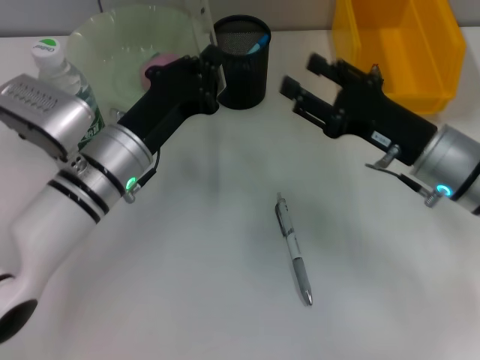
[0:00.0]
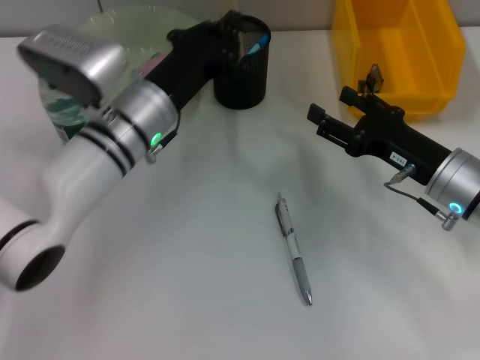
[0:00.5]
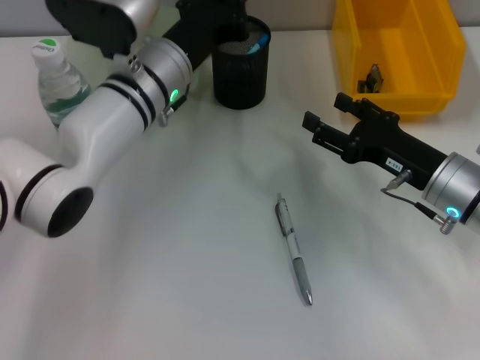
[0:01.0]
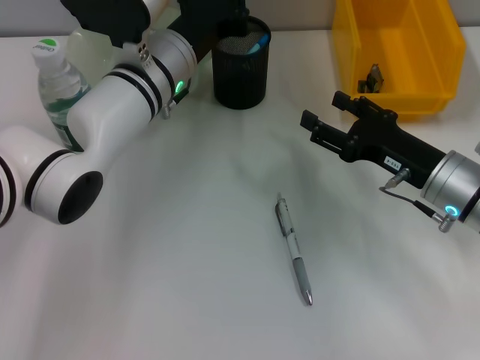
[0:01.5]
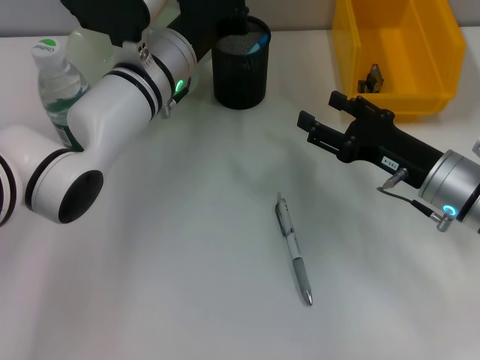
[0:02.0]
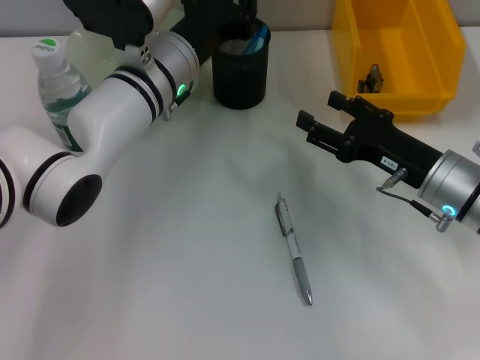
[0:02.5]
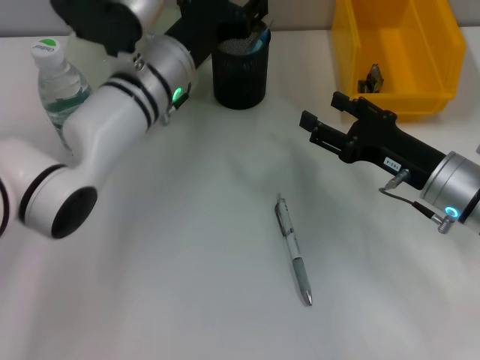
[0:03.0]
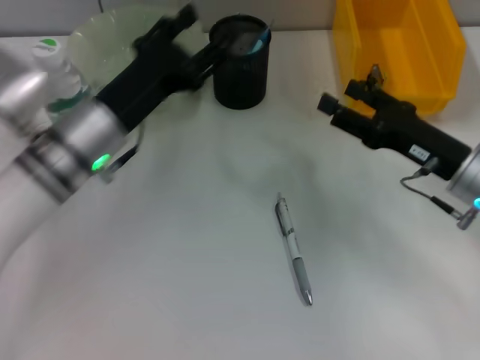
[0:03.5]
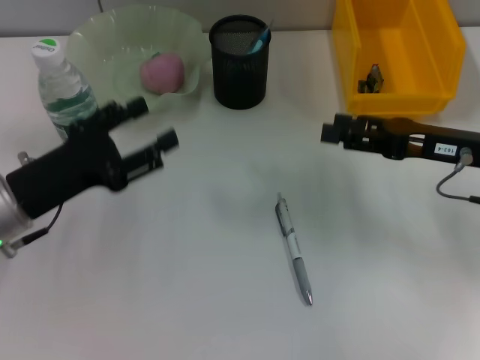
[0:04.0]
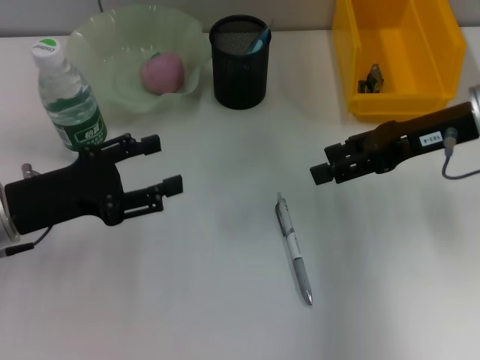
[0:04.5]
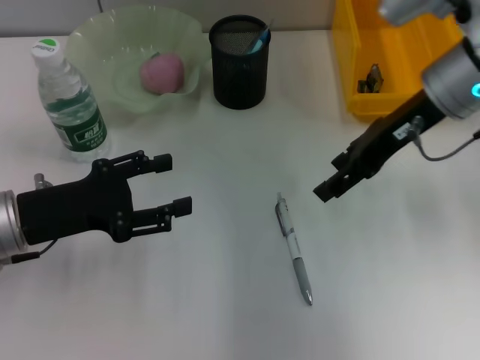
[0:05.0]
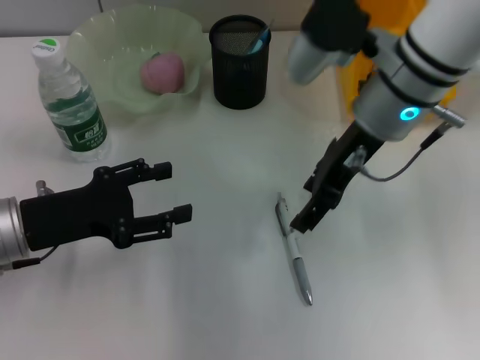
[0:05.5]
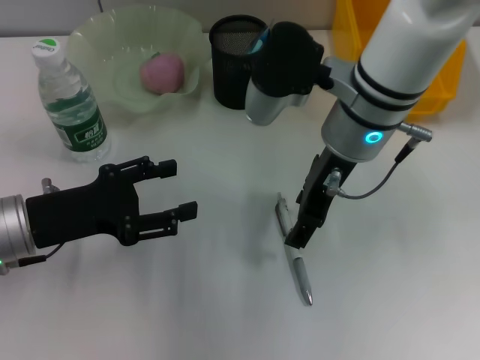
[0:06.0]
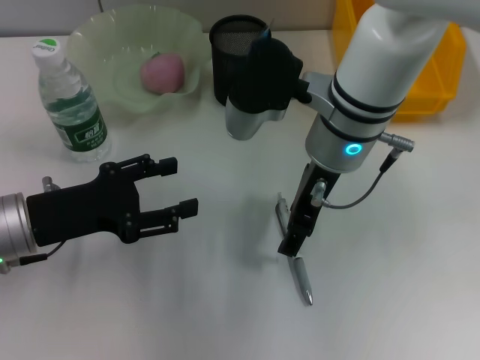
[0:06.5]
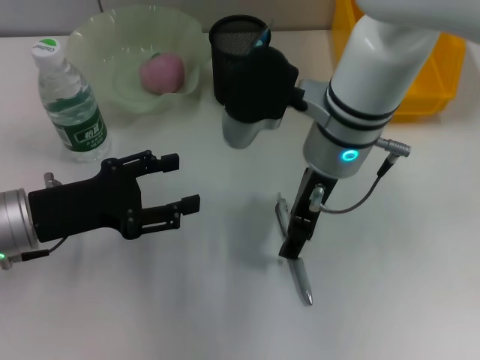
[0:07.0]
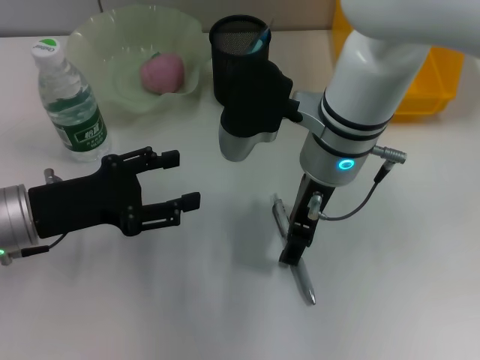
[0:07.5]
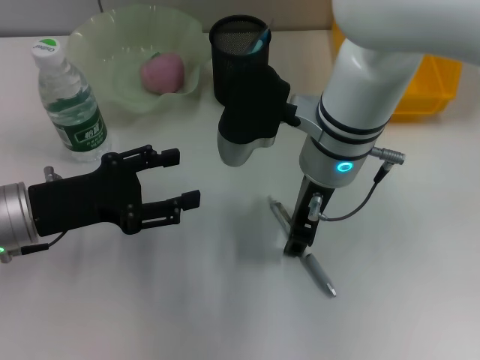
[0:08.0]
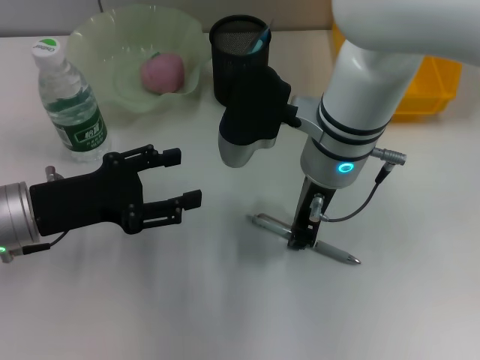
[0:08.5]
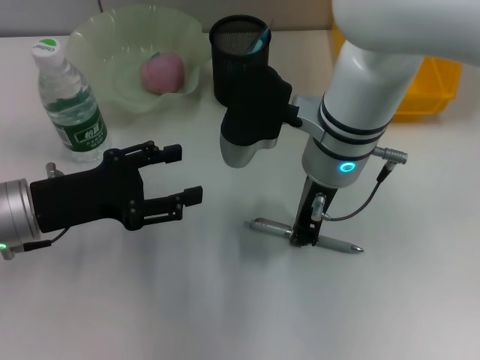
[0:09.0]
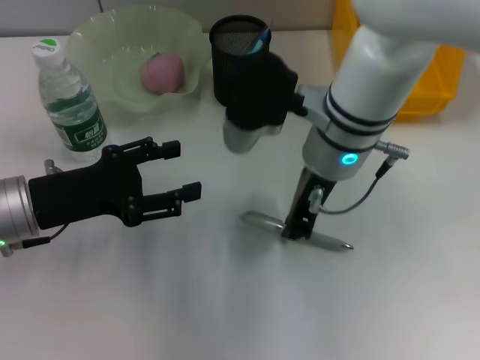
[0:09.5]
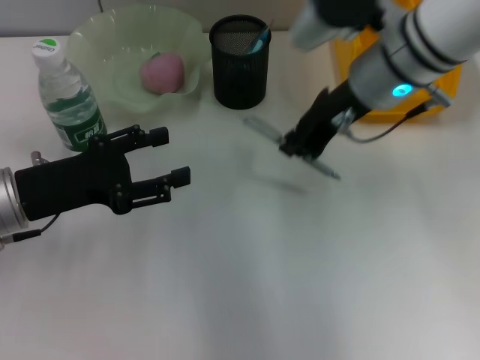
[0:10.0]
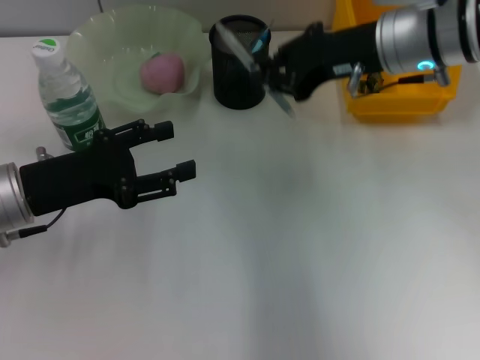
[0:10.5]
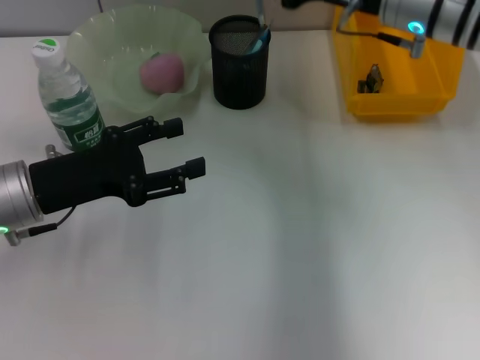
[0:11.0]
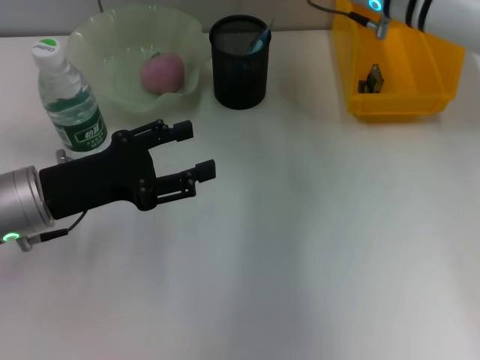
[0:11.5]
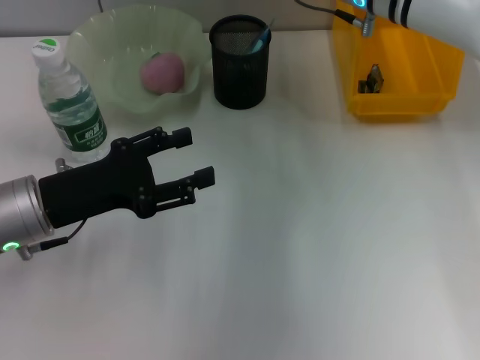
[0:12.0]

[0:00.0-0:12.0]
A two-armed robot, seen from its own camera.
Step, 0:00.0 to 0:03.0: Place the ruler into the pen holder with the left hand.
Step, 0:03.5 to 0:08.5: Grab the gray spring-action pen with the left hand.
0:00.0 to 0:02.0: The left gripper moves forward, roughly 10 cm.
0:02.0 to 0:04.0: The right gripper heads upward, covering some 5 cm. The left gripper heads to the left and backward, covering some 20 cm, and opens.
0:04.0 to 0:06.0: The right gripper moves to the left, approximately 20 cm.
0:08.0 to 0:10.0: The right gripper shifts some 5 cm to the right, and closes up.
0:10.0 to 0:12.0: The right gripper is displaced forward by approximately 5 cm.

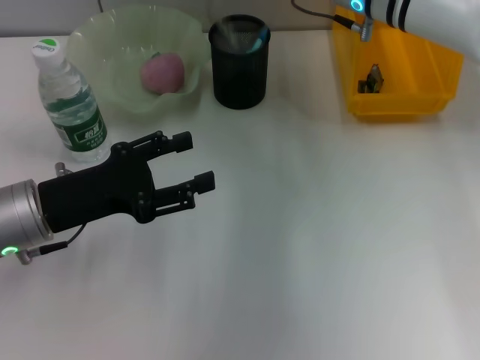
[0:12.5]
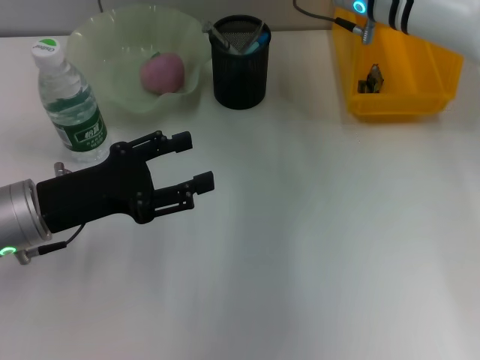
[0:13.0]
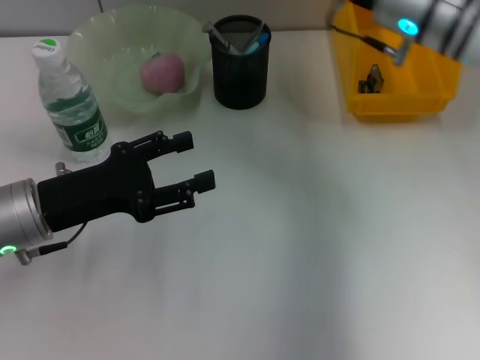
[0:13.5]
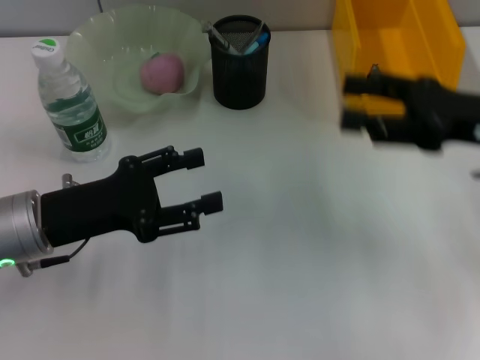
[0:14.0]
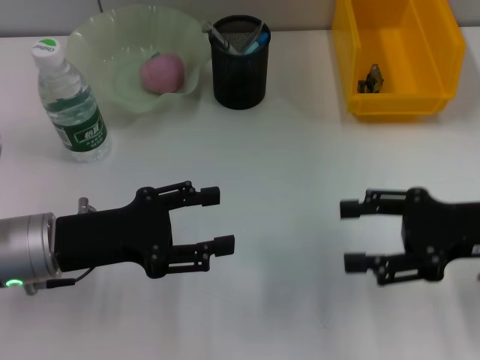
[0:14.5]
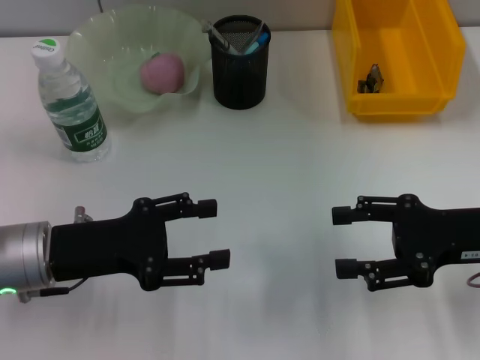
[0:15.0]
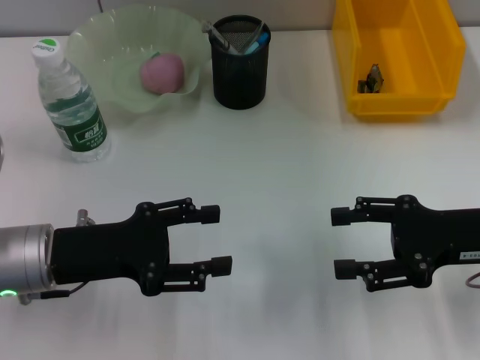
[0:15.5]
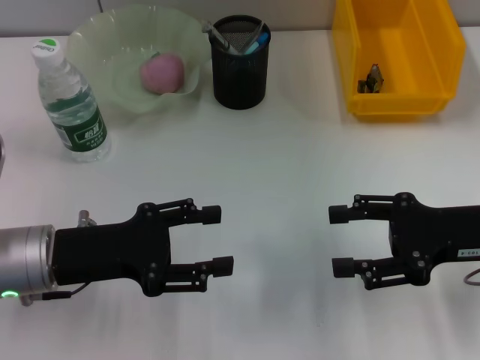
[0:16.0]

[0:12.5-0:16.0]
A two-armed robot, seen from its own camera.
0:12.5 to 0:14.5: The right gripper travels backward and to the right by some 25 cm, and opens its fingers.
0:14.5 to 0:16.0: The two grippers keep their place.

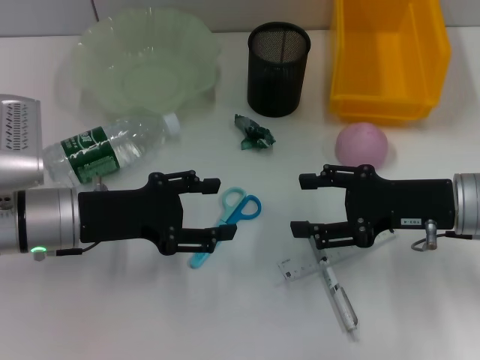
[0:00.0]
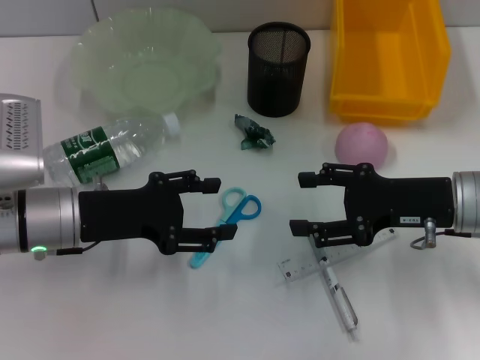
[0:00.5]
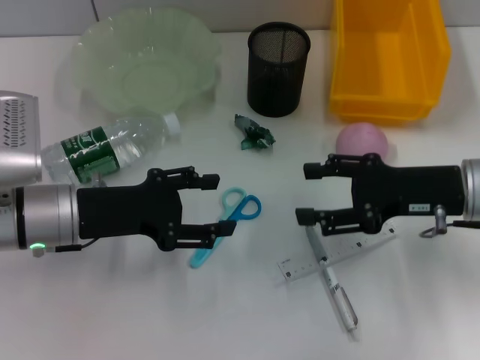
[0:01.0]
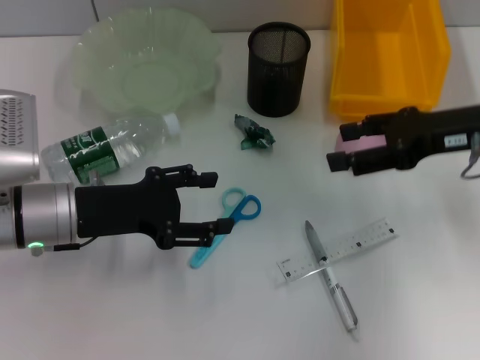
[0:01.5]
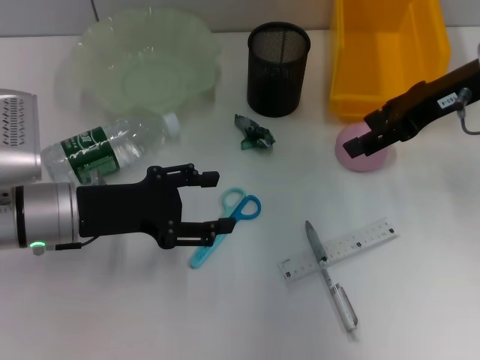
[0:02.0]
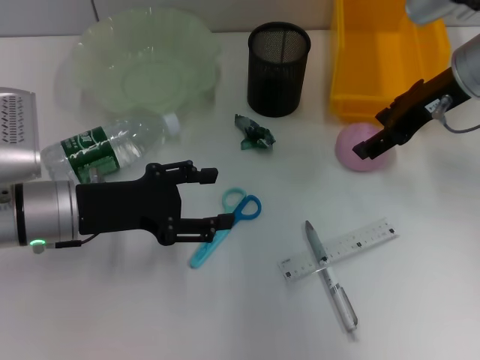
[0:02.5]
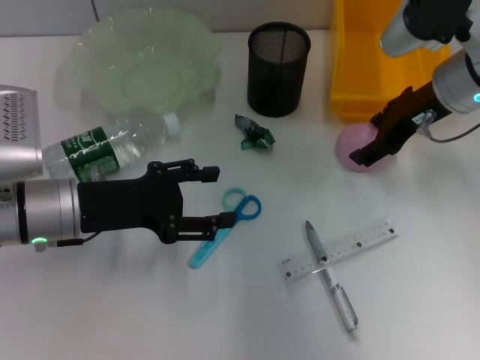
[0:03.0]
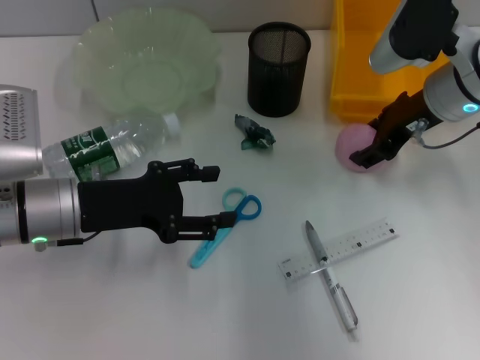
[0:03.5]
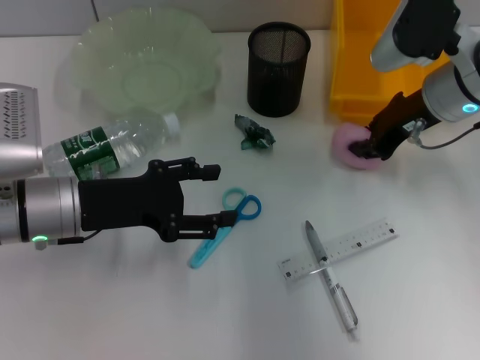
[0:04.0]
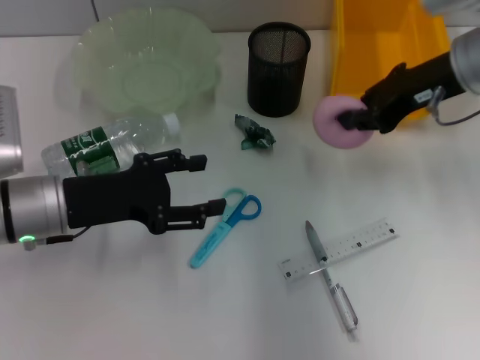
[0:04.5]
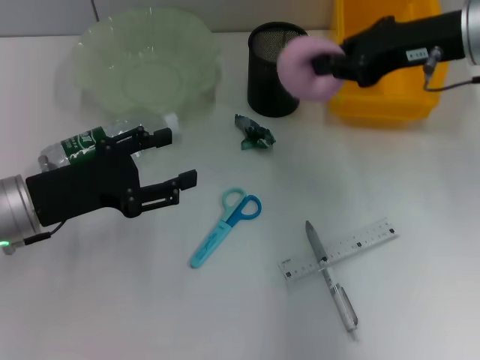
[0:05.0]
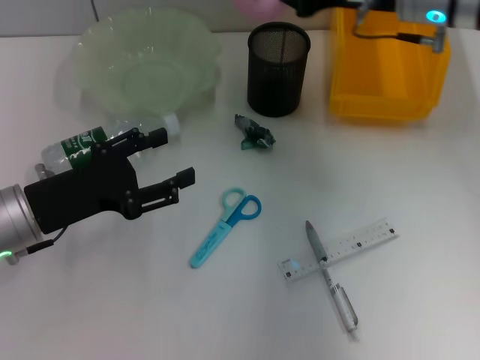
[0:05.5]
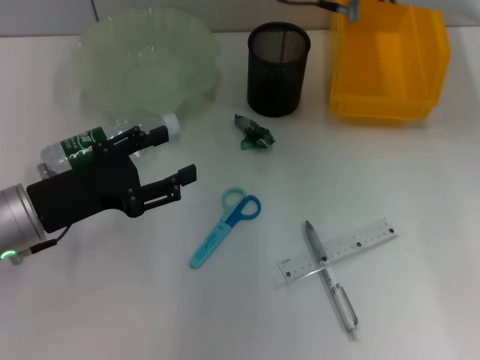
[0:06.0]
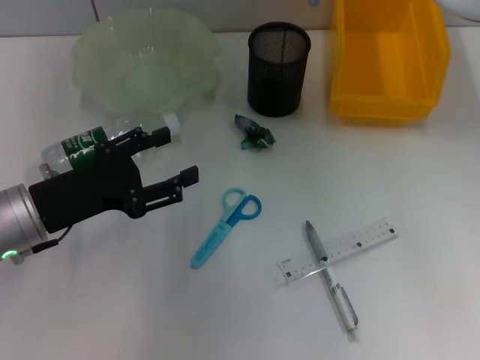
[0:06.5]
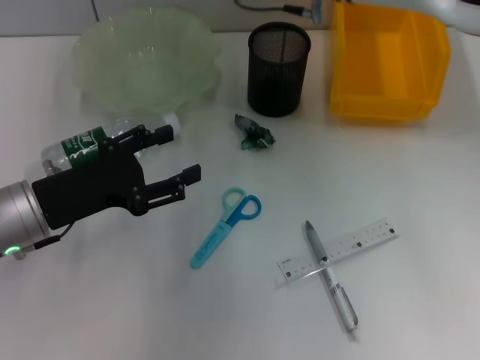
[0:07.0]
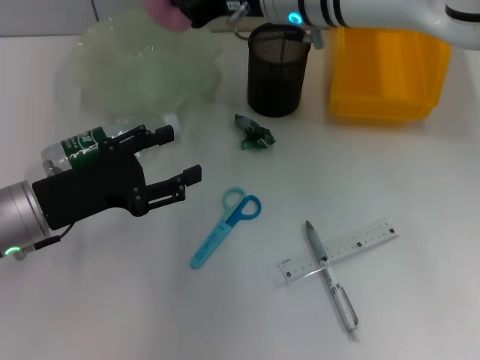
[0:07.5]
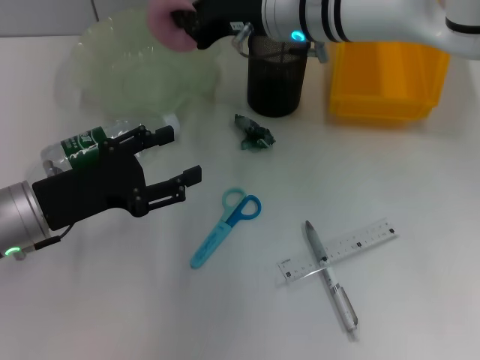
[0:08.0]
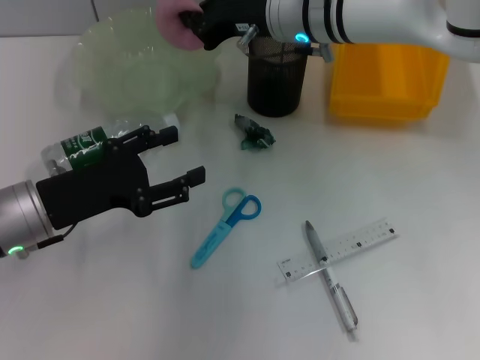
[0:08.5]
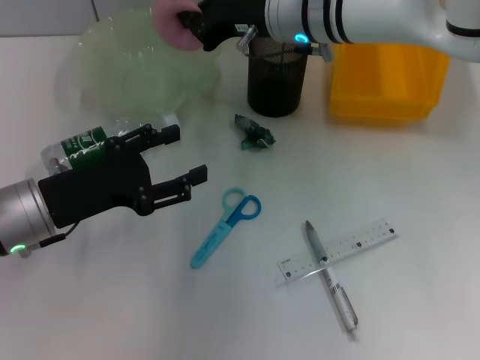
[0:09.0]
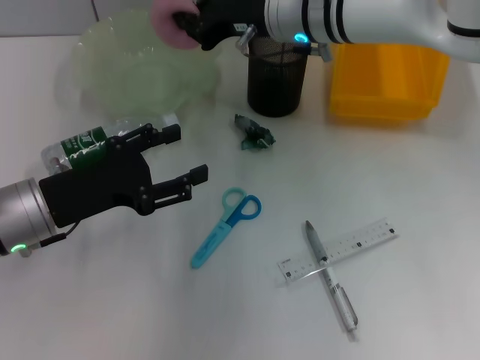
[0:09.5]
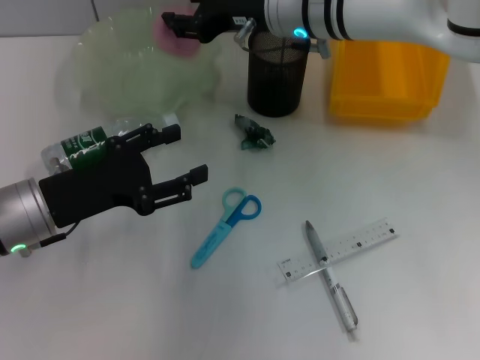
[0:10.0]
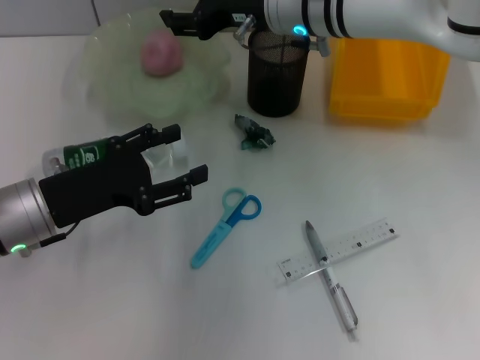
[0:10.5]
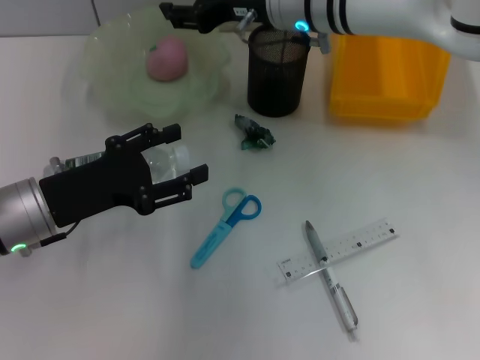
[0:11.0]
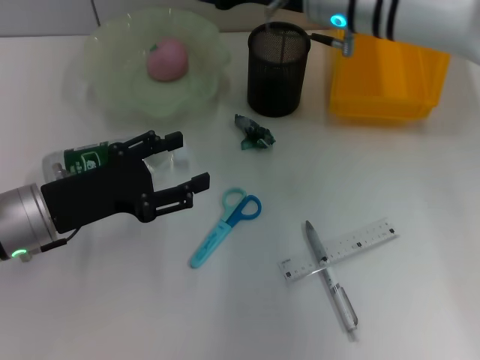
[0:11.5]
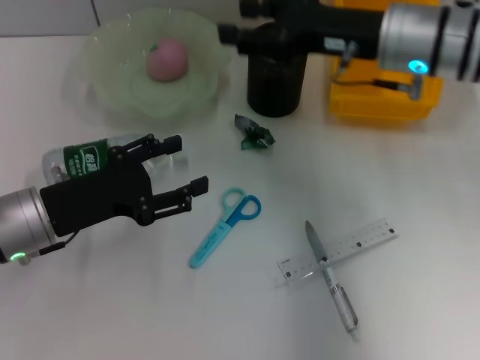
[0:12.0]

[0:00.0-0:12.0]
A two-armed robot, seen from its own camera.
Step, 0:00.0 to 0:03.5: Grab the peach with the right hand.
Step, 0:04.0 to 0:11.0: Place the peach into the fruit bowl with the right hand.
0:00.0 to 0:02.0: The right gripper goes about 15 cm upward and forward.
0:02.0 to 0:04.0: The right gripper changes place by roughly 5 cm, and closes.
0:04.0 to 0:06.0: The right gripper moves to the left, forward and upward, roughly 15 cm, and closes up.
0:06.0 to 0:08.0: The right gripper ends up roughly 5 cm from where it was.
0:08.0 to 0:10.0: Both grippers stay put.
0:10.0 to 0:12.0: The right gripper travels to the right and backward by approximately 10 cm, and opens its fingers.
